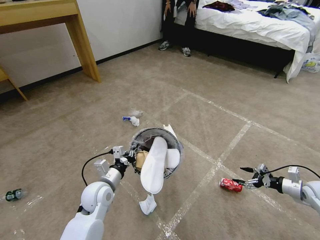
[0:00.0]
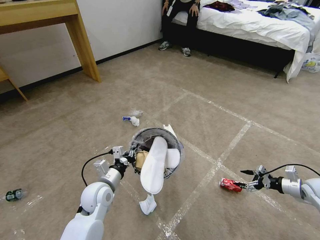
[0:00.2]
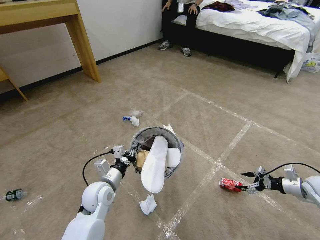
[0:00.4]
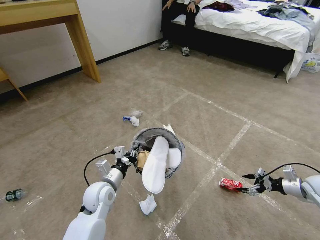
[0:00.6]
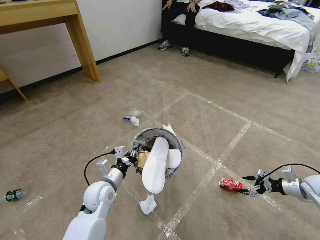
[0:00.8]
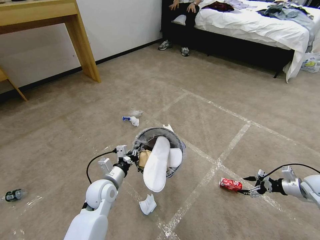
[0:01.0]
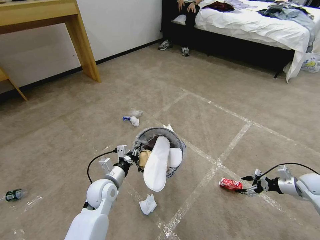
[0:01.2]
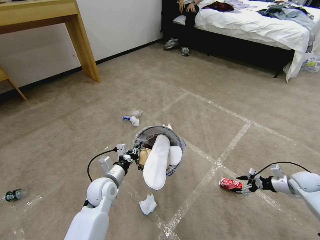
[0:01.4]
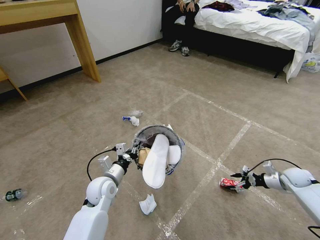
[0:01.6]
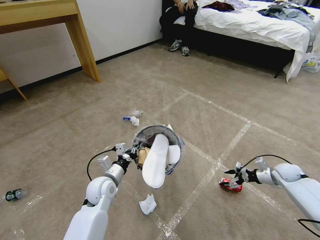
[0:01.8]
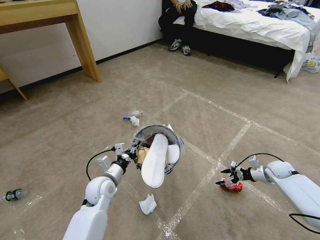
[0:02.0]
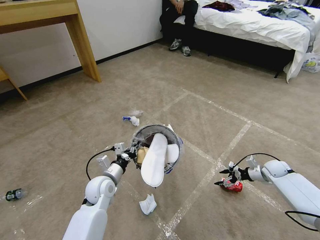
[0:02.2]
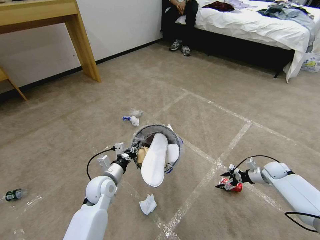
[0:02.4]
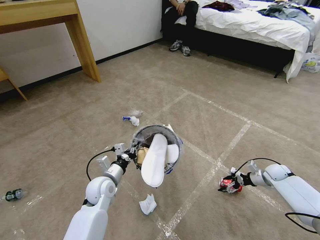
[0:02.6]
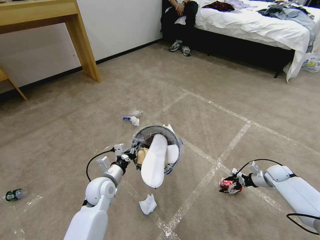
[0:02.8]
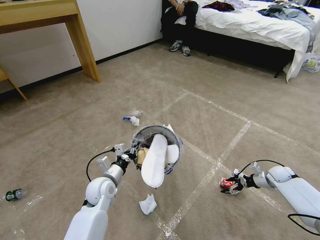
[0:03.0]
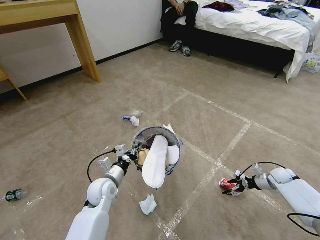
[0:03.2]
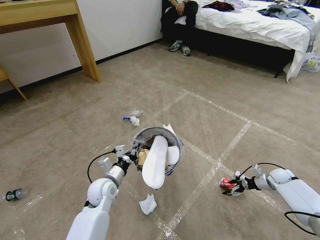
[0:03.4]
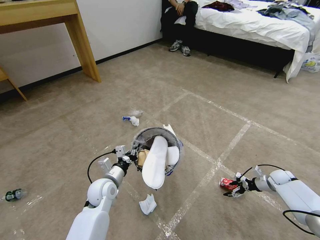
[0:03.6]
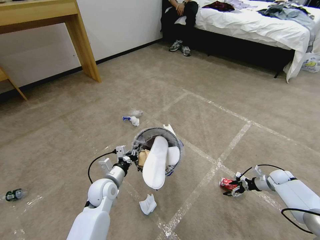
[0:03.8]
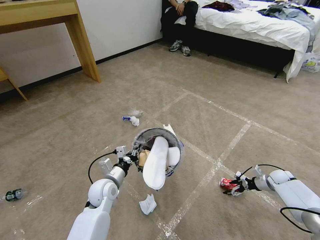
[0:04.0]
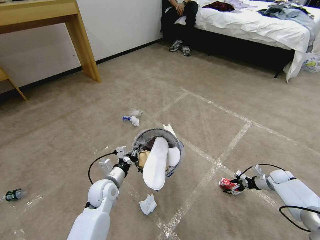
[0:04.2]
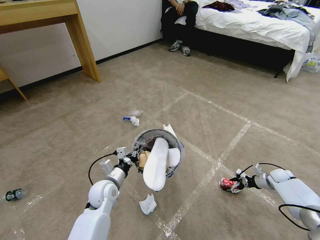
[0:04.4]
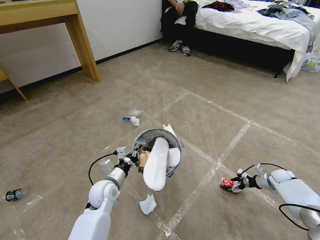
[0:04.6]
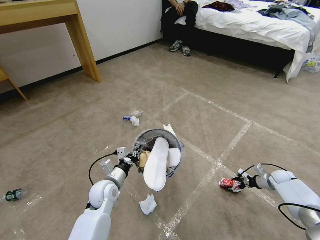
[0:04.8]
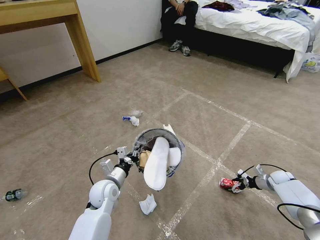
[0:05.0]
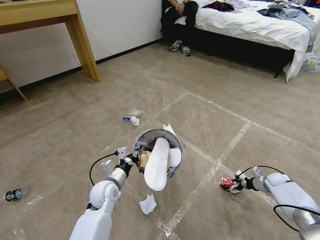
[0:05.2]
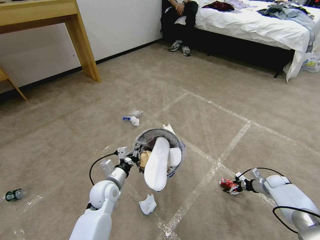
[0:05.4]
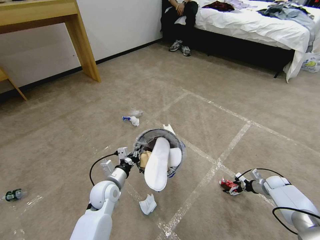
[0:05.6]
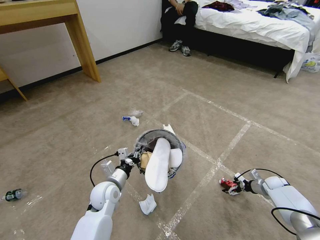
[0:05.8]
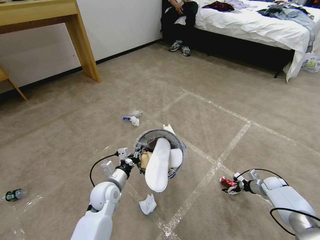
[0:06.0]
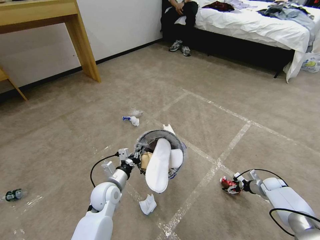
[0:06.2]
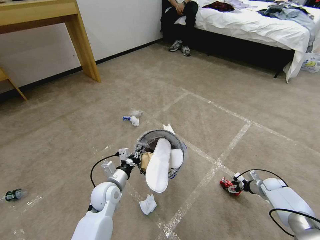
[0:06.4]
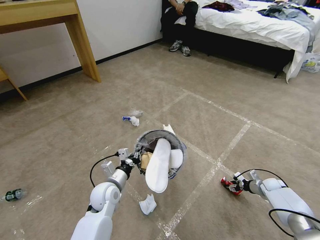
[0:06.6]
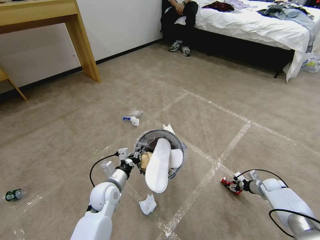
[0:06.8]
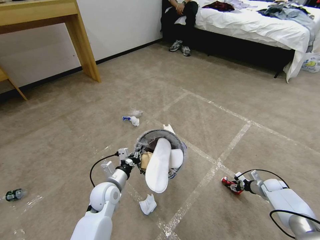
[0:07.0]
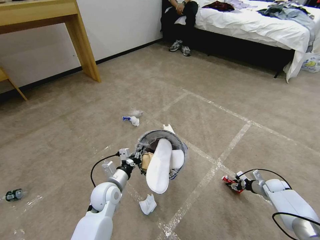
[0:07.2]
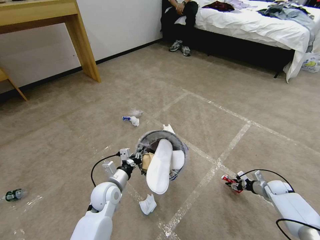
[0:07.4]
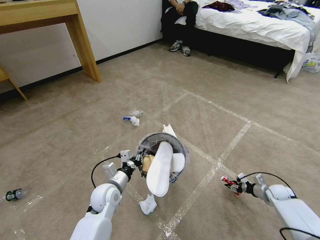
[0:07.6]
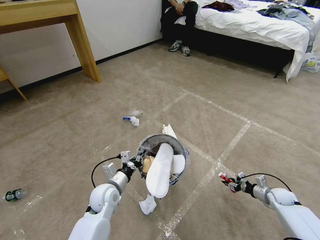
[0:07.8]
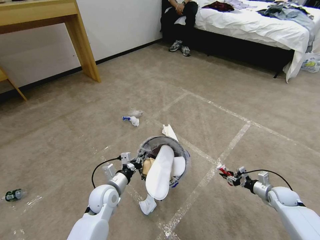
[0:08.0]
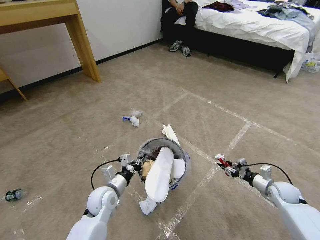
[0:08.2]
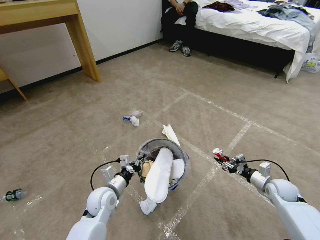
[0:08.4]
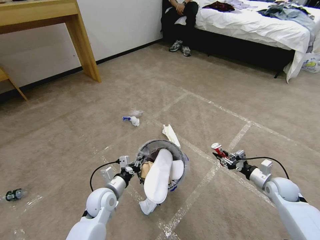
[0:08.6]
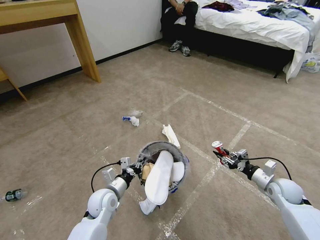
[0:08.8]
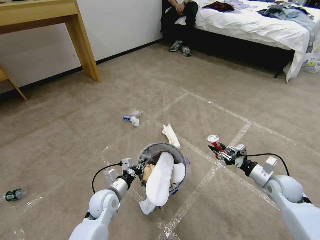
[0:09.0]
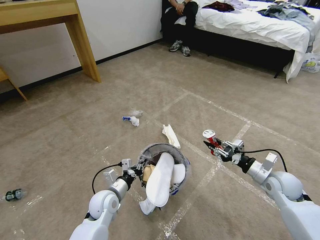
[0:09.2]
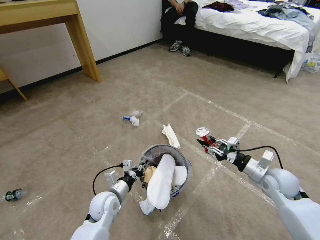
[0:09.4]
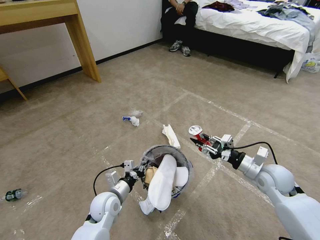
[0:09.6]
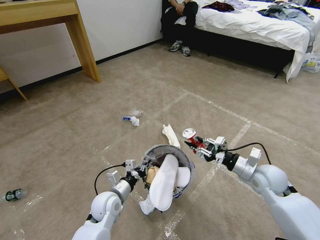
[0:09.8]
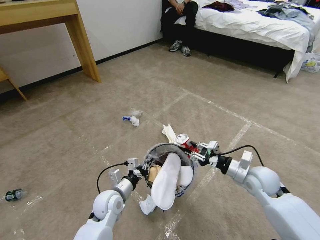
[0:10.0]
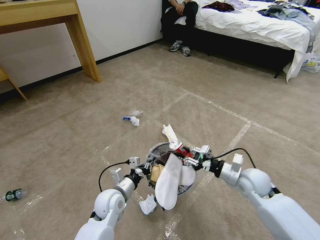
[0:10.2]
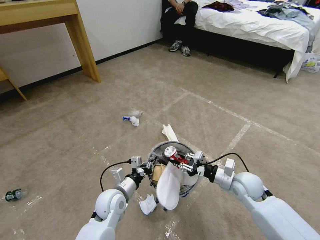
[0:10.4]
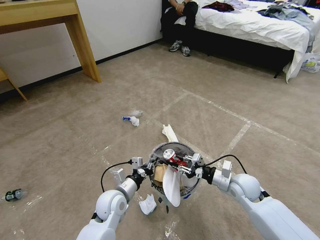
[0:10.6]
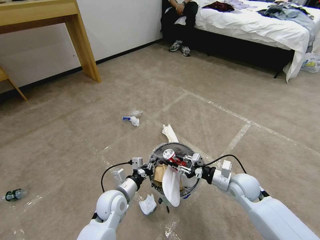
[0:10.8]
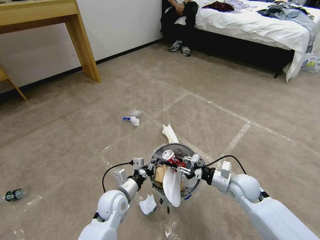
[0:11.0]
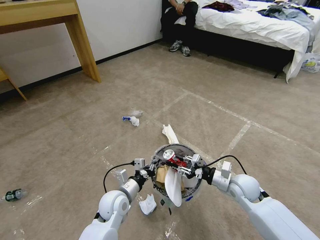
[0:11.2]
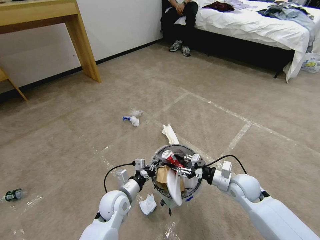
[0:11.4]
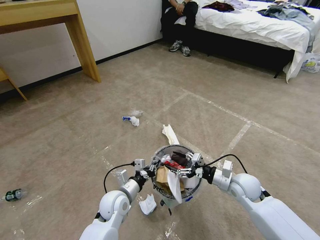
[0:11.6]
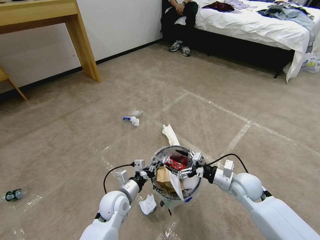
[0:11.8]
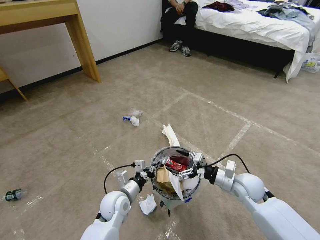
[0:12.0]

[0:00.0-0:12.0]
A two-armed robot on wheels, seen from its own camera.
Task of the whole recording: Pick up the trash bin and place the garbage on the floor into it.
0:00.0 to 0:01.6: The right gripper goes some 5 cm forward.
0:01.6 to 0:03.0: The right gripper shifts by about 5 cm.
0:03.0 to 0:04.4: There are only small adjustments of the grippers.
0:04.4 to 0:06.0: The grippers move only a little.
0:06.0 to 0:07.6: The right gripper closes up.
0:07.6 to 0:09.0: The right gripper shifts about 20 cm upward and to the left.
0:09.0 to 0:10.4: The right gripper heads to the left, covering roughly 15 cm.
0:10.4 to 0:12.0: The right gripper opens its fingers.

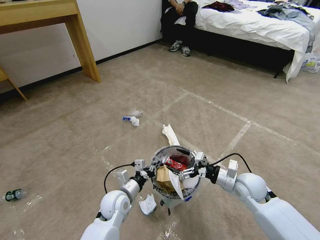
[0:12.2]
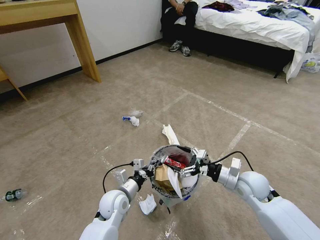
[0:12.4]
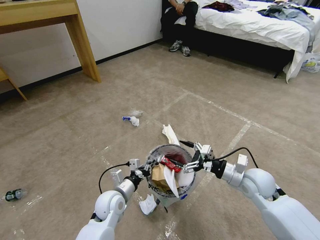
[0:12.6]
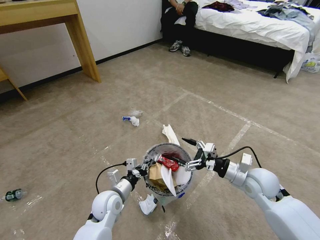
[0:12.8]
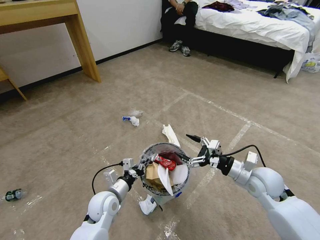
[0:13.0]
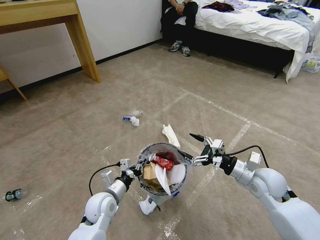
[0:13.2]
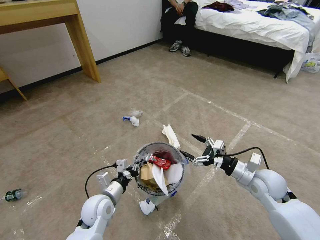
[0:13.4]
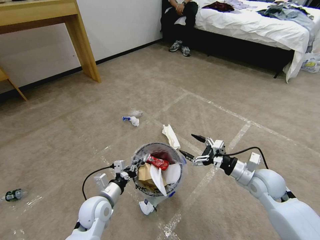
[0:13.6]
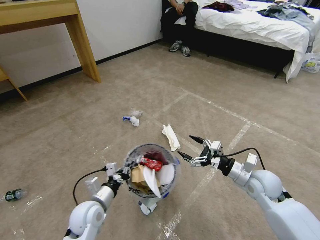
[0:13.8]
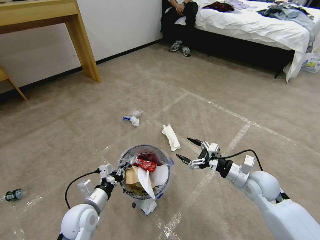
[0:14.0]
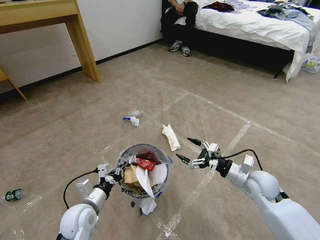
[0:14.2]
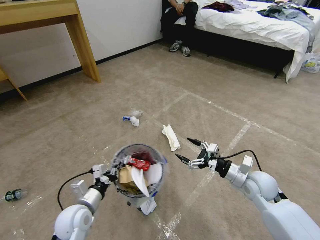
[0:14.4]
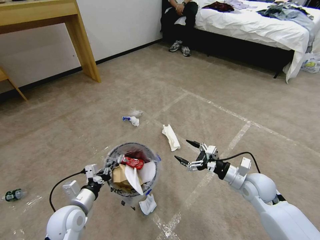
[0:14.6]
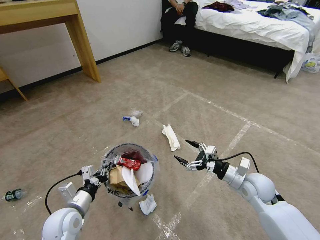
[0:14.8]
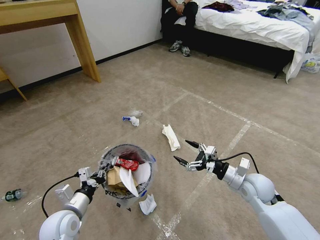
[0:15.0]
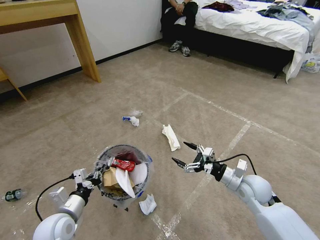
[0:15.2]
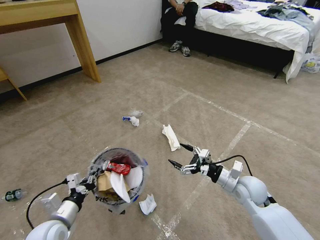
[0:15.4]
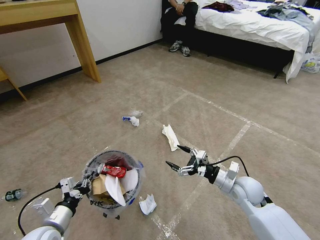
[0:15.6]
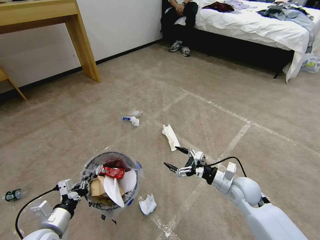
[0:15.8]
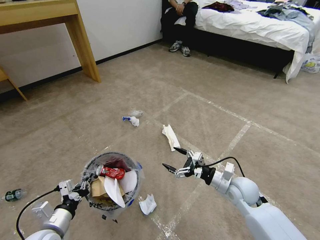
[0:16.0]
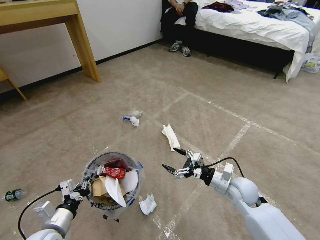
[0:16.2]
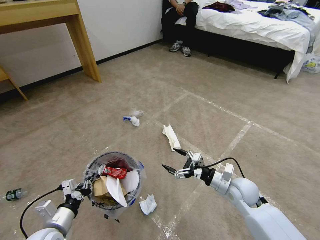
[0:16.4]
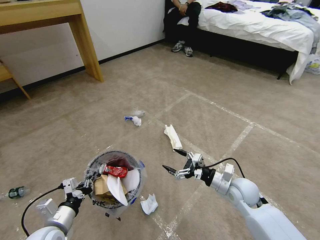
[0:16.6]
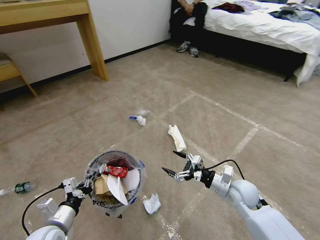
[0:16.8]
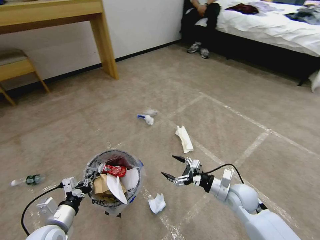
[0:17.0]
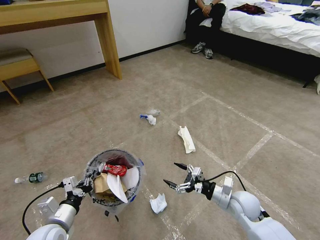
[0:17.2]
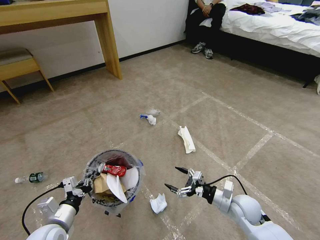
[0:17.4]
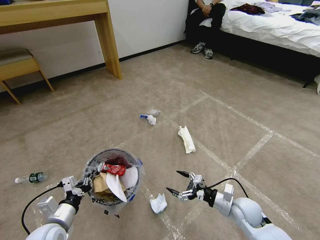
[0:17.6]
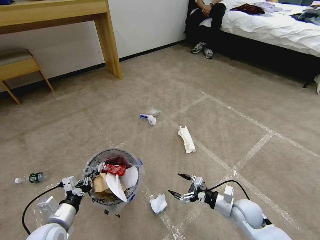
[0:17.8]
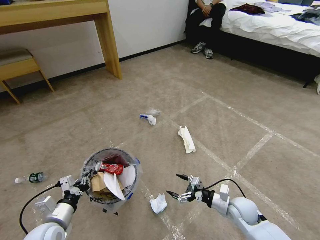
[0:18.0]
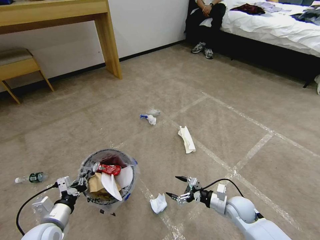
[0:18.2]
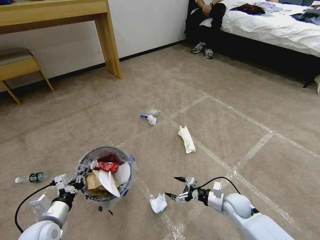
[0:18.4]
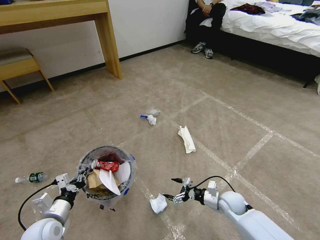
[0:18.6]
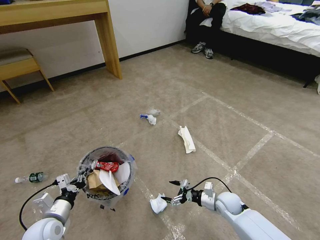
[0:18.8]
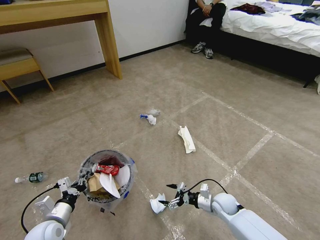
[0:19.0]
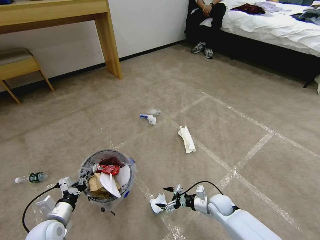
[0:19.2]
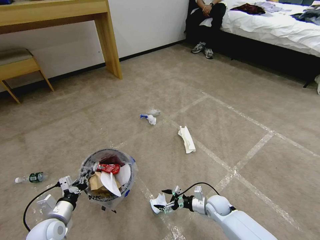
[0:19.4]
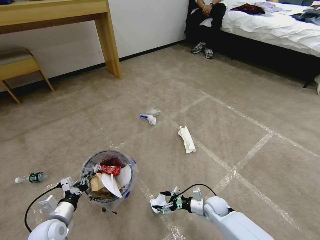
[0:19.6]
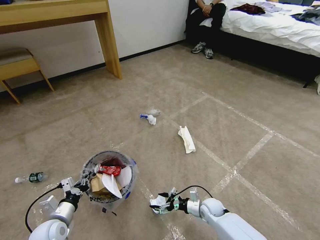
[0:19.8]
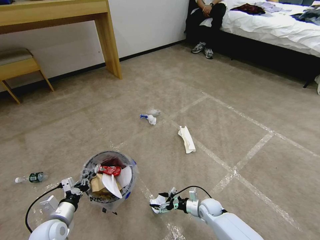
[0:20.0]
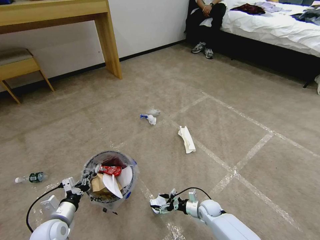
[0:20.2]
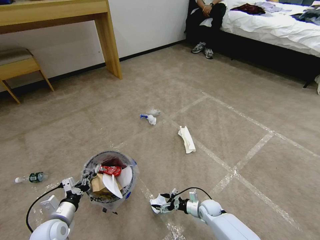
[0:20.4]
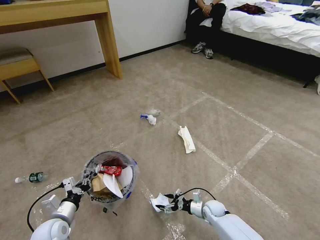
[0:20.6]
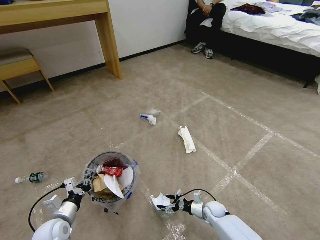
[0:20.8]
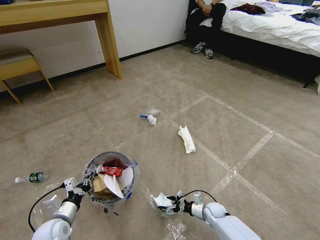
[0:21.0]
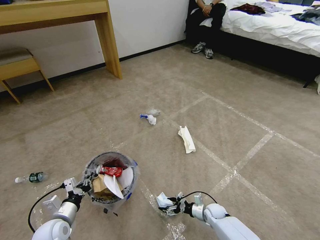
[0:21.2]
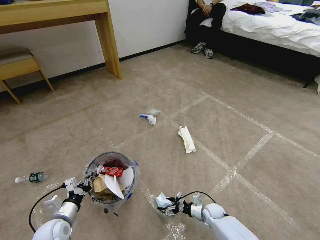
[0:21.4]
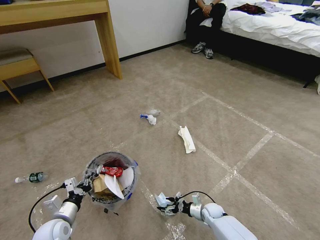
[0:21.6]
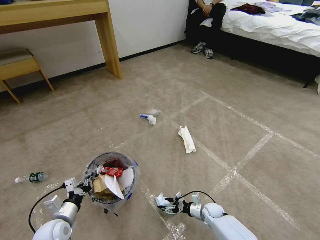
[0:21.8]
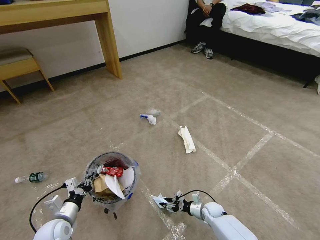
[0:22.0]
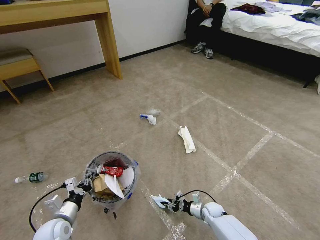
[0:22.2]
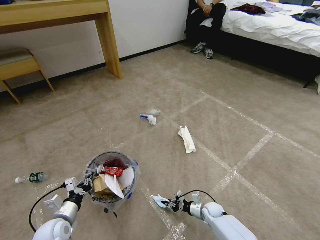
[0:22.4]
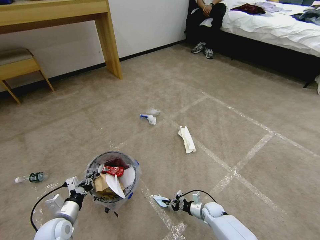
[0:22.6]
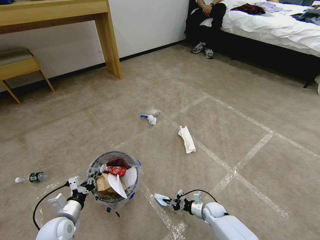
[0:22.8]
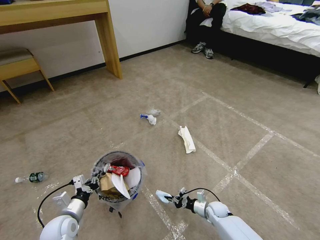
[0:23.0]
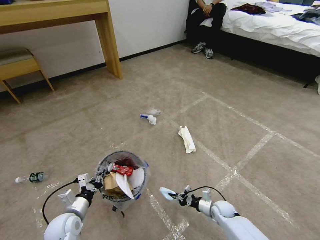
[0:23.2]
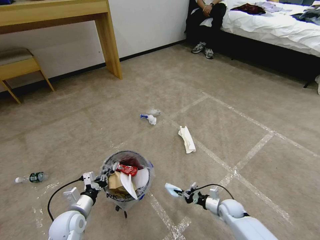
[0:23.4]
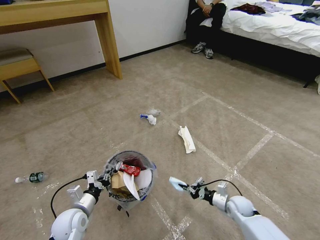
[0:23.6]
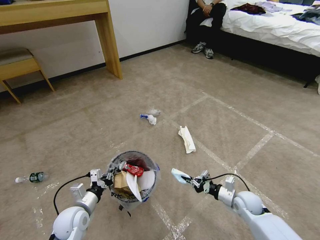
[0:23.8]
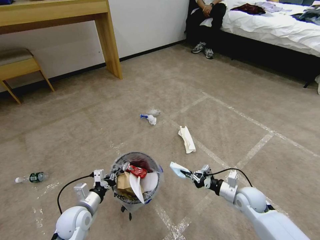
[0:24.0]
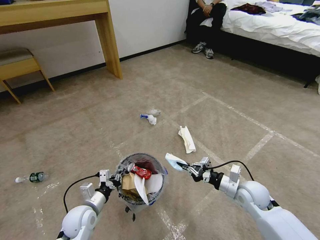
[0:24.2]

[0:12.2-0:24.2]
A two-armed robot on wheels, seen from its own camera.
Task of the whole recording: Pick up the trash bin and place the garbage on the floor into it.
0:12.2 to 0:13.8: The left gripper travels to the left by some 5 cm.
0:13.8 to 0:15.2: The left gripper travels to the left by roughly 10 cm.
0:15.2 to 0:16.6: The grippers stay close to where they were, moving slightly.
0:16.6 to 0:18.2: The right gripper is displaced downward by some 10 cm.
0:18.2 to 0:19.8: The right gripper moves downward and to the left, approximately 15 cm.
0:19.8 to 0:21.2: The right gripper heads downward, covering some 5 cm.
0:21.2 to 0:22.6: The right gripper closes its fingers.
0:22.6 to 0:24.2: The left gripper goes some 5 cm to the right. Meanwhile the right gripper moves upward, approximately 25 cm.
